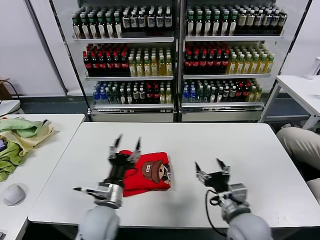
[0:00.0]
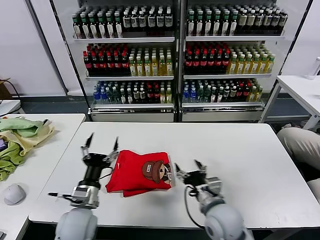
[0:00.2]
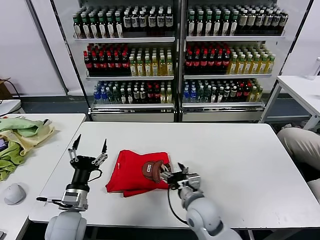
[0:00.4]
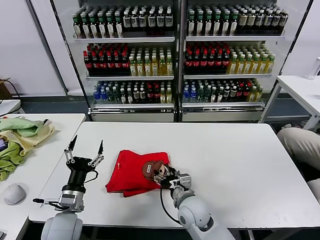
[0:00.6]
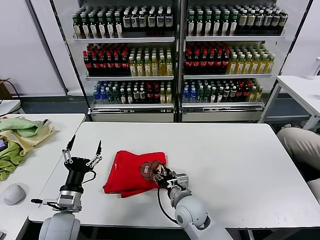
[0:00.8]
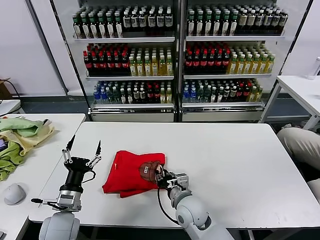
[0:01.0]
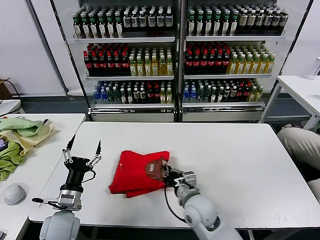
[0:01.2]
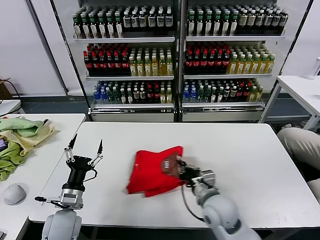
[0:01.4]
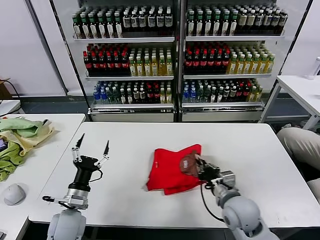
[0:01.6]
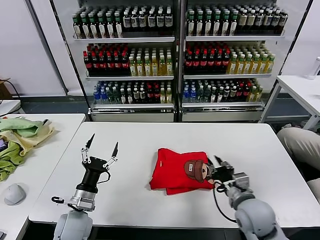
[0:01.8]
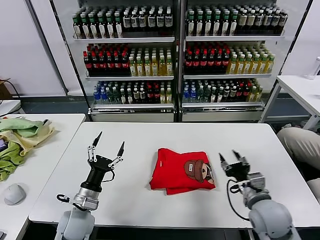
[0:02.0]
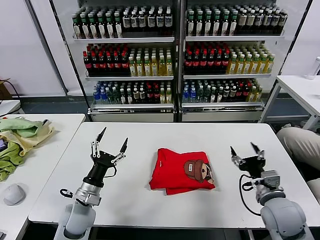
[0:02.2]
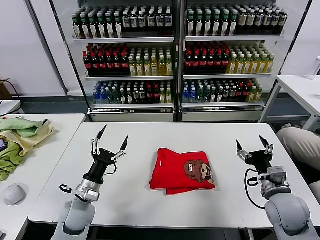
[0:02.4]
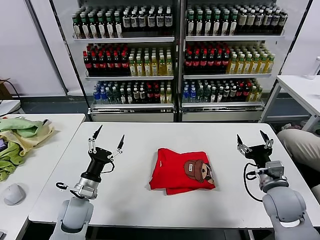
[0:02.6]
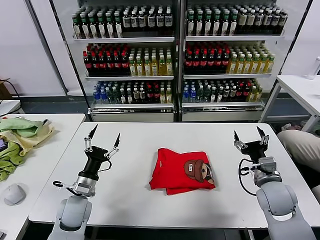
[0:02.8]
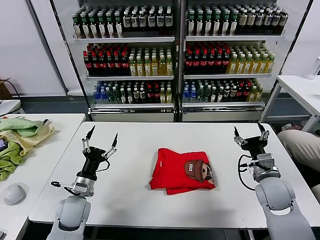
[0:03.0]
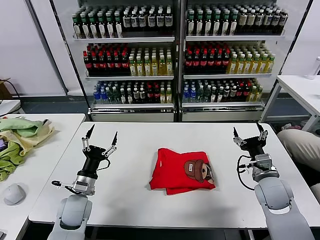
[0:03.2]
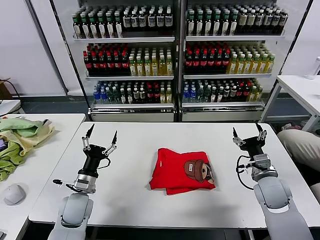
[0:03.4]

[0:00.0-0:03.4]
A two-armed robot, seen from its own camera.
Task of the whole recording: fold and organize the clothes.
Step, 0.0 to 1.8 s: Drag the clothes to the center of the table.
0.0 to 1.6 s: The left gripper heads to the left and downward, covering some 15 cm, while the right gripper travels forward by roughly 5 cm, goes to the left and returns, some 15 cm each way, and closes up.
1.6 to 3.4 s: The left gripper travels forward by approximately 5 cm. The right gripper heads to the right and forward, covering about 15 cm, and opens up.

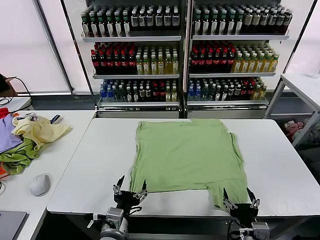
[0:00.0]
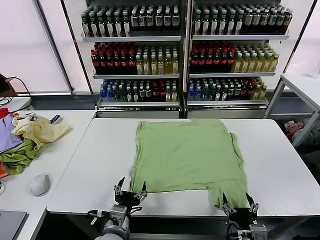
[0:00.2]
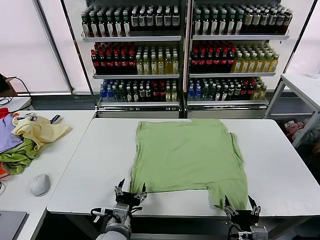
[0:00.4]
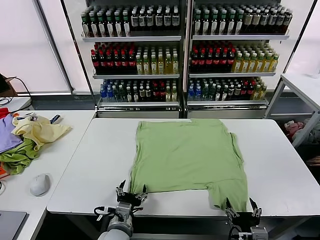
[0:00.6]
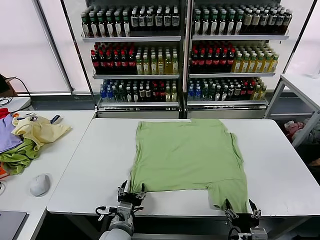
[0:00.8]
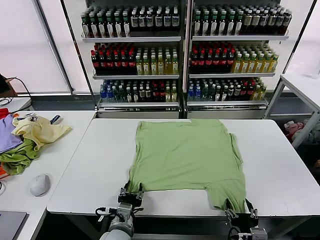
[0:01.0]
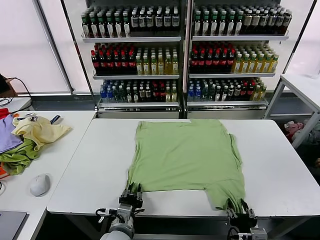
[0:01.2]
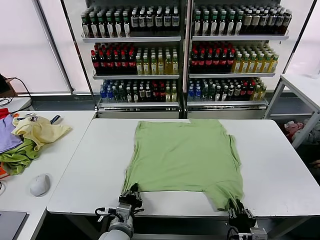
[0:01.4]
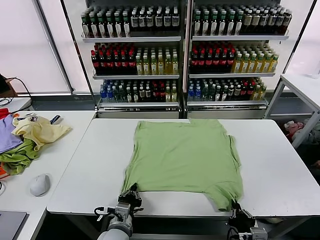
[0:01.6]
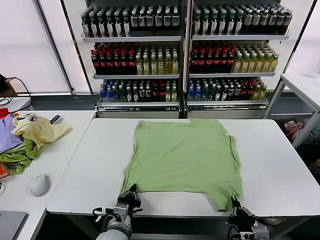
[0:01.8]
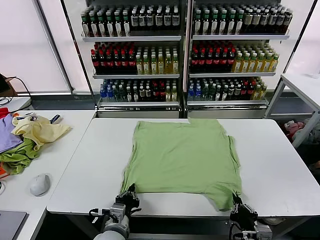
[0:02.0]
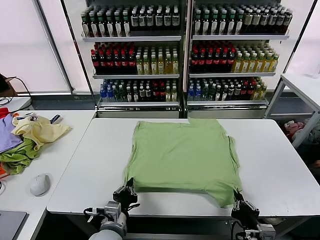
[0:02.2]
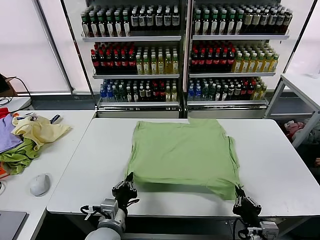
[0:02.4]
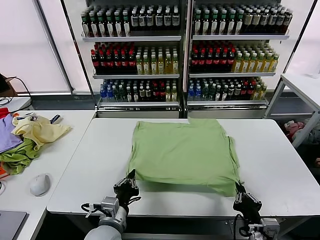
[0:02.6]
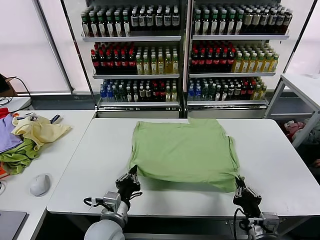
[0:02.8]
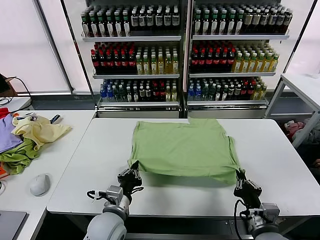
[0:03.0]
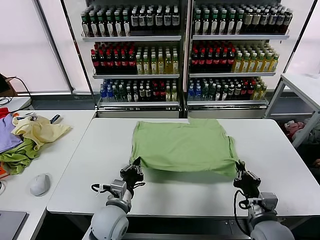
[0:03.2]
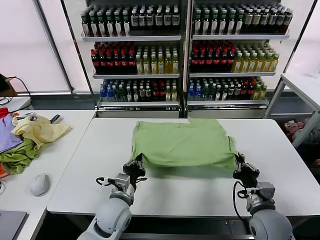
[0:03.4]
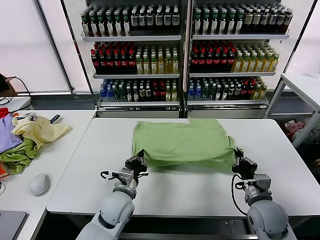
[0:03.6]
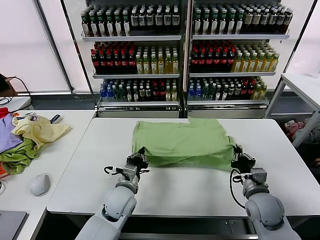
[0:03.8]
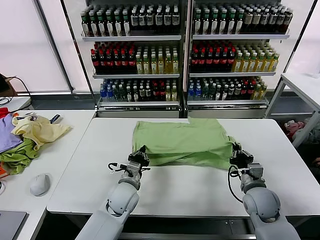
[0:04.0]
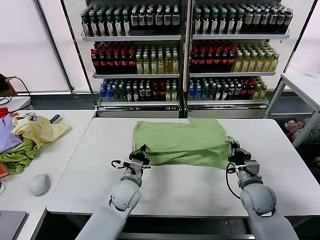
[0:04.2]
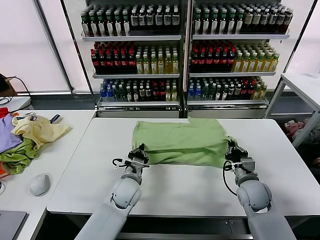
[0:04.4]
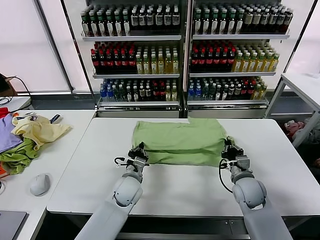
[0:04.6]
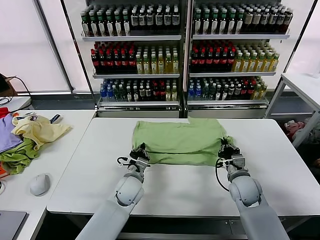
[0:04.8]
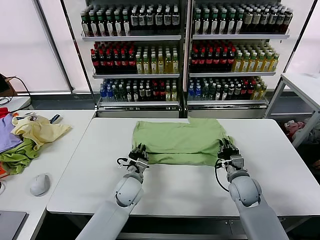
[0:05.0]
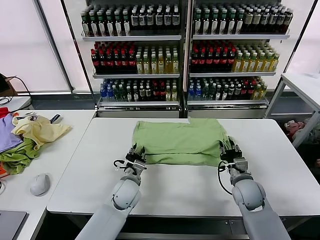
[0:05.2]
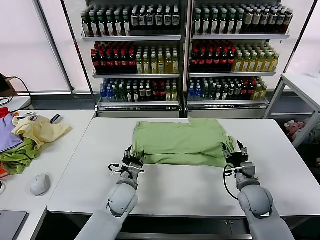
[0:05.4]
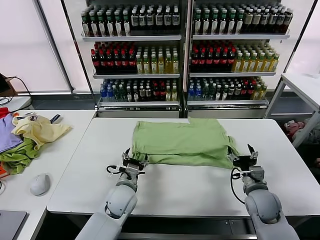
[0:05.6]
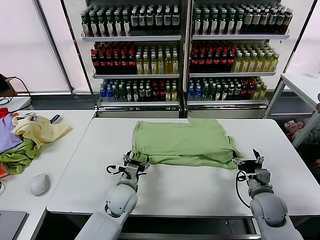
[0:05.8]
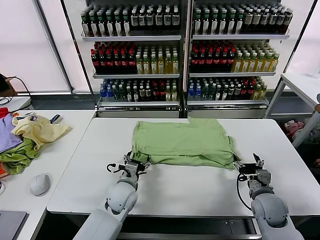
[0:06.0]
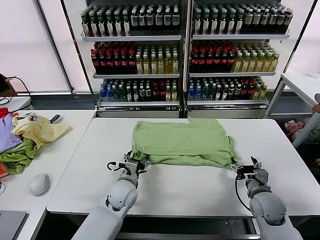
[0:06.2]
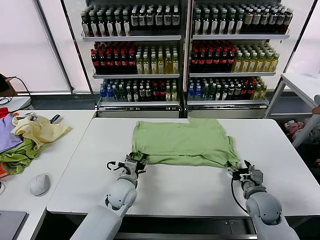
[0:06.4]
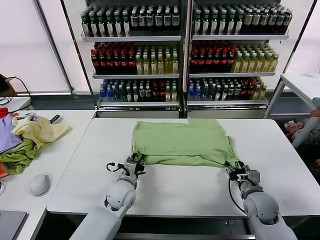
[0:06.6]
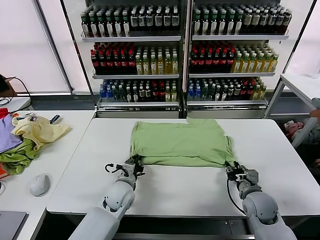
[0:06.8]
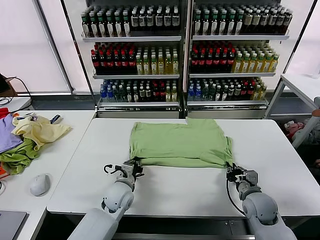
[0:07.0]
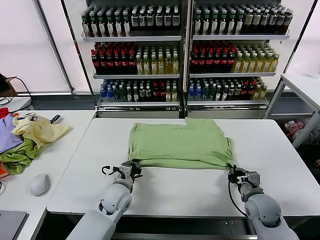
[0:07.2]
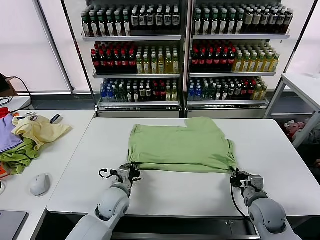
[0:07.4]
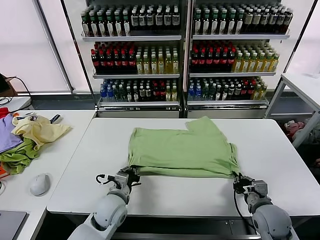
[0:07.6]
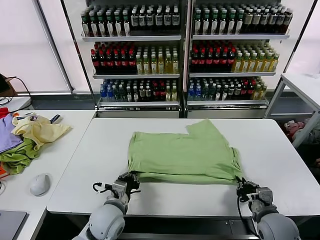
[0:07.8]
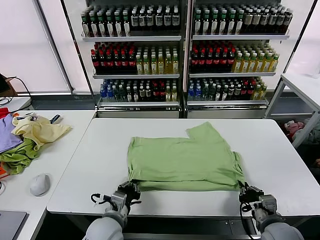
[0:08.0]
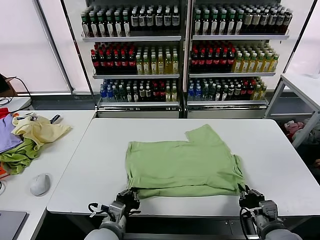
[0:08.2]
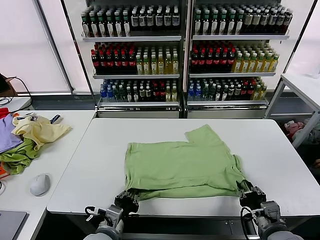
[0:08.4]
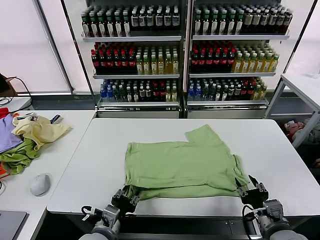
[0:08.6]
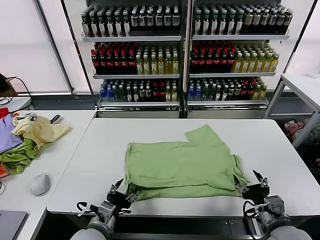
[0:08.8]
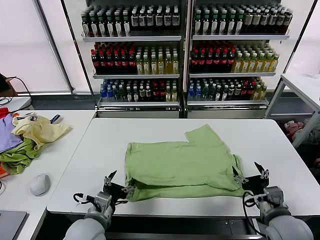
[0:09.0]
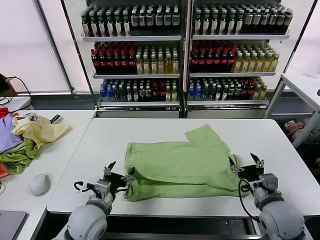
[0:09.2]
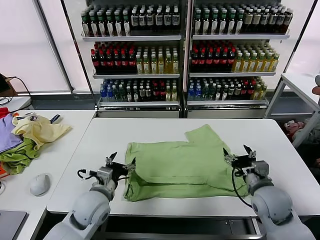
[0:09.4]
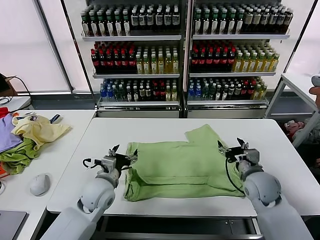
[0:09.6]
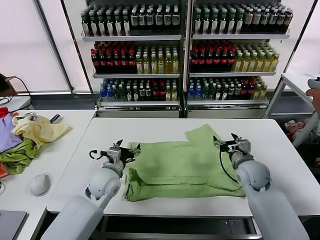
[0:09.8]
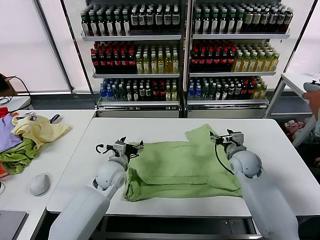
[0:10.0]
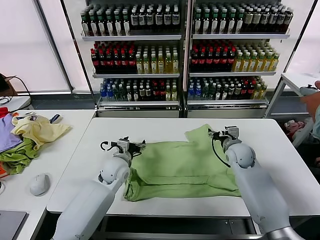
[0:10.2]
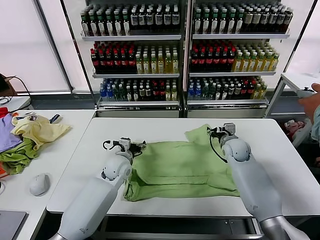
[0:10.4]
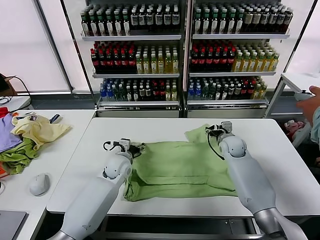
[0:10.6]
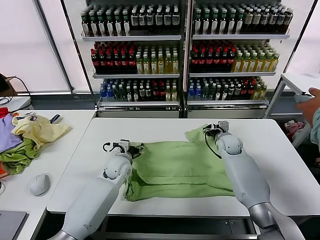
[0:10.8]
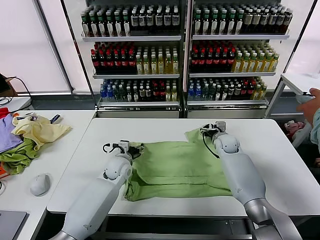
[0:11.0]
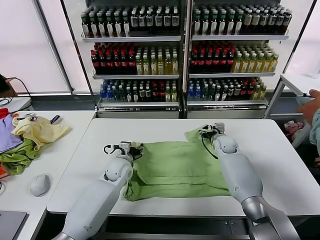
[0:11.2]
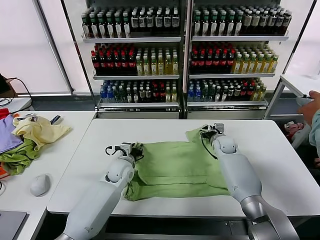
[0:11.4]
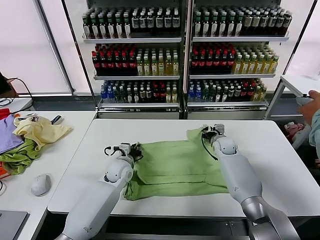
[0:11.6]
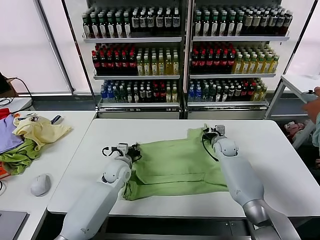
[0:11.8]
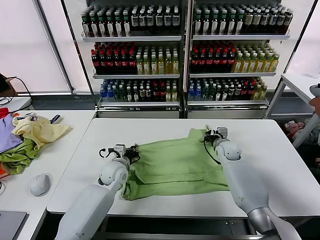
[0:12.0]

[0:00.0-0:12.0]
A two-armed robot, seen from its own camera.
Task of the whole recording: fold and organize the clothes.
Step, 0.0 to 1.6 s: use both grippers simultaneously to clamp the lower edge of the clothing fabric.
Step, 1.8 to 5.2 s: use both grippers to drag the lower edge of the fabric forward and fold it over the upper edge.
Step, 5.4 to 8.6 s: Drag the clothes downward with both gripper.
Step, 8.8 to 12.0 s: use both grippers simultaneously to clamp the upper edge of the clothing fabric.
1.6 to 3.0 s: The left gripper travels upward by roughly 5 cm. The right gripper moves forward, about 10 cm.
3.0 to 4.4 s: Both grippers travel together forward, roughly 15 cm.
4.4 to 6.0 s: The left gripper opens its fingers. The right gripper shifts by approximately 5 cm, and opens its fingers.
6.0 to 7.6 s: Both grippers travel together backward, approximately 5 cm. The right gripper closes; the left gripper closes its fingers.
7.6 to 9.0 s: The right gripper heads upward, covering roughly 5 cm, and opens up; the left gripper shifts about 10 cm backward, and opens.
9.0 to 10.4 s: Both grippers move forward, about 25 cm.
10.4 to 12.0 s: The left gripper closes up; the right gripper closes.

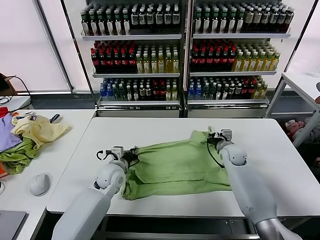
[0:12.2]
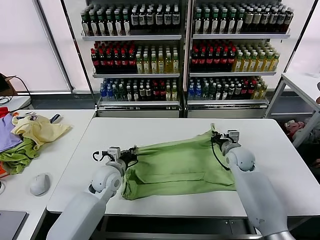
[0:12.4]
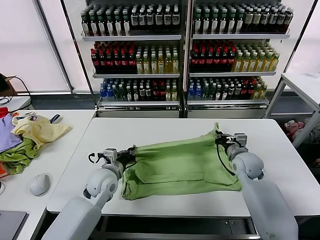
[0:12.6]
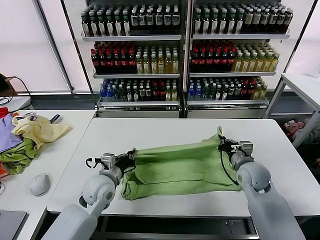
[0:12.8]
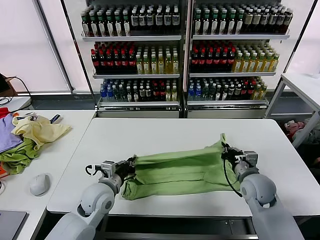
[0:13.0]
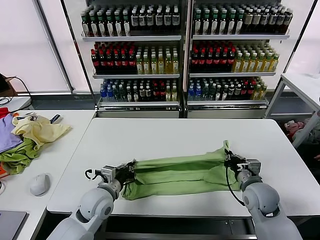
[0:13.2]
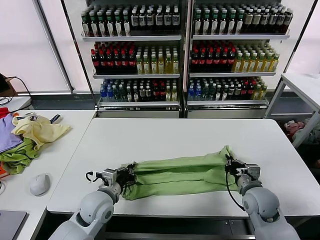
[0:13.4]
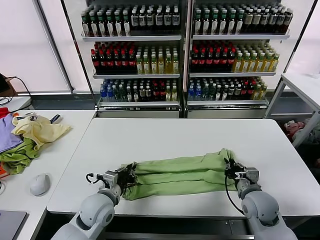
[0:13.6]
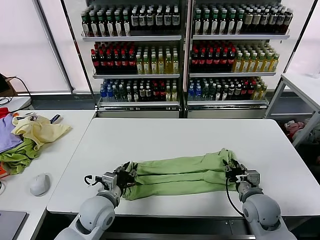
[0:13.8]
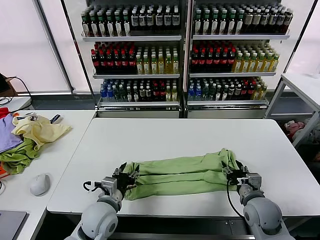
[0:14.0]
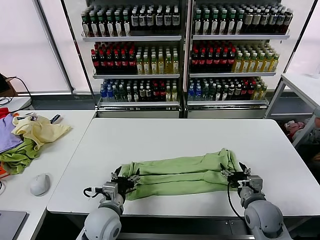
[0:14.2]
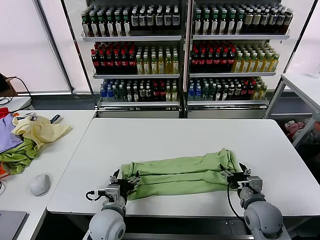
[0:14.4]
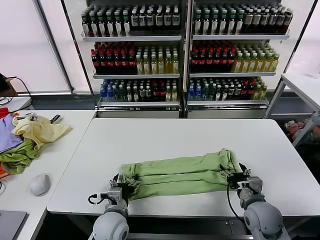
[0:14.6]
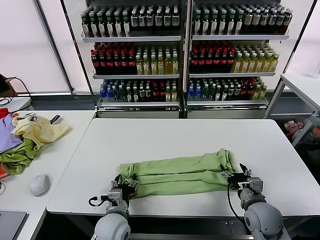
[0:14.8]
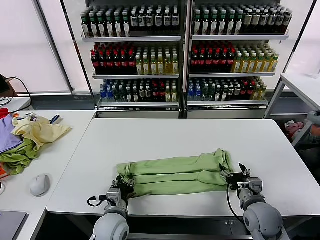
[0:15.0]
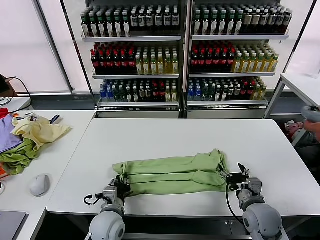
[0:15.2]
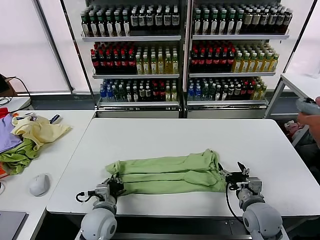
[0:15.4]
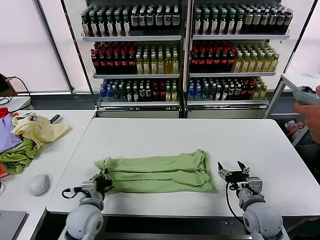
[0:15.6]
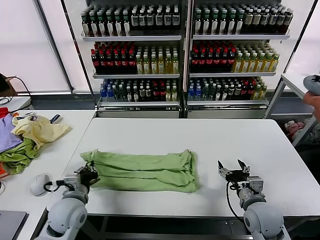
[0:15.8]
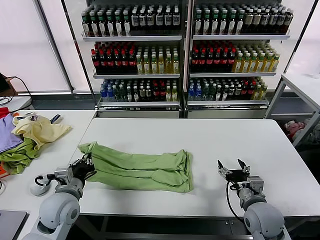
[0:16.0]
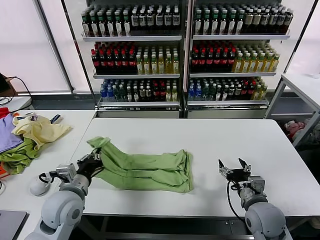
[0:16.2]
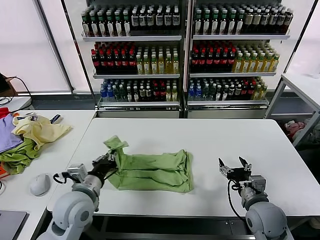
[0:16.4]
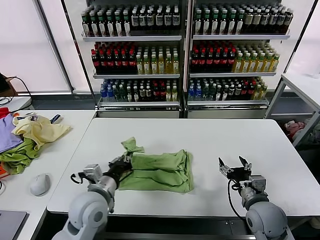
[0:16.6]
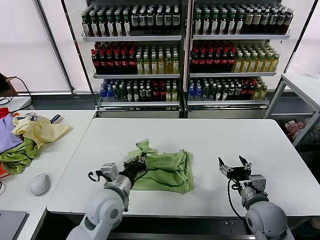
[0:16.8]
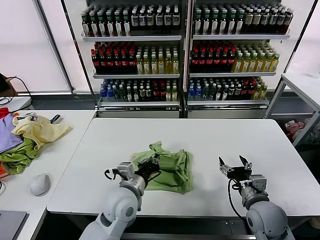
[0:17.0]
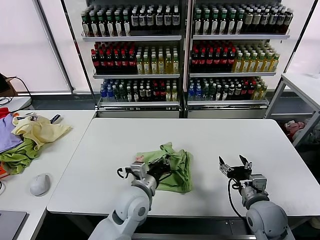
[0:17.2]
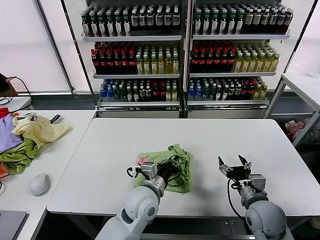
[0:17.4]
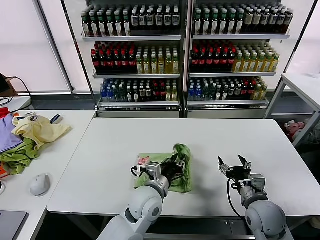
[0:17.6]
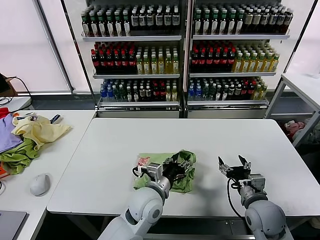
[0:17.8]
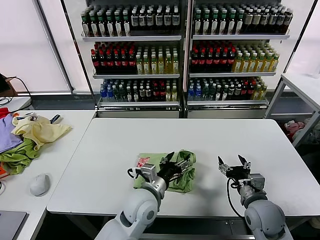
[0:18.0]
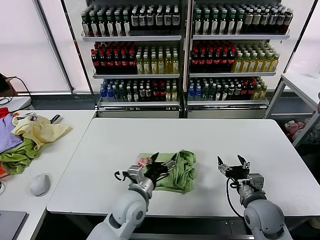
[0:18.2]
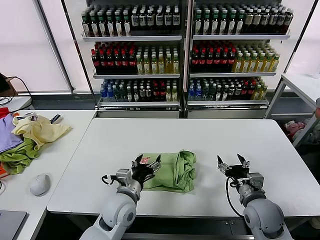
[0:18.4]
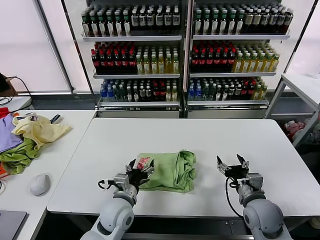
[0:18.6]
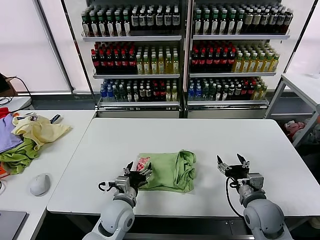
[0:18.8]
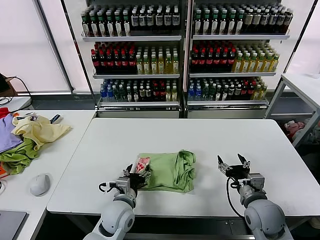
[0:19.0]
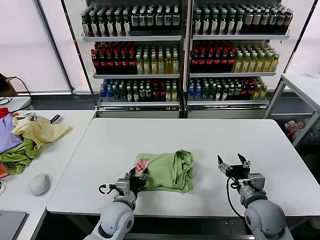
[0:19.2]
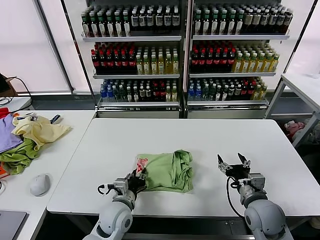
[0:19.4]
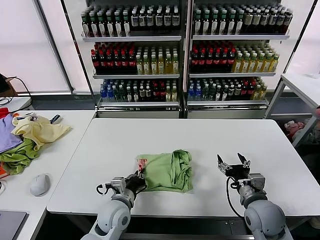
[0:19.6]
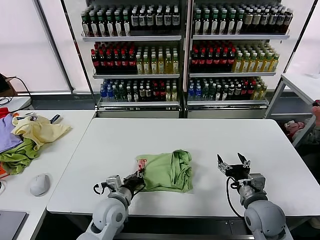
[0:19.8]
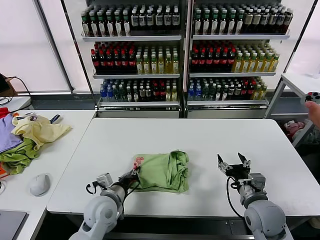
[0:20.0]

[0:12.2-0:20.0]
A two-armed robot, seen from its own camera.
Task of the whole recording: fold and organize the clothes.
Step, 12.2 to 13.8 s: use both grippers to drag the upper edge of the fabric backward and fold it over the lower edge.
Step, 14.0 to 15.4 s: use the left gripper to clamp the left edge of the fabric.
Step, 15.6 to 17.8 s: use the left gripper to drag the left edge of the fabric to the left and folds it over the right edge.
12.2 to 13.8 s: The right gripper is displaced backward by some 20 cm, and opens its fingers, while the left gripper goes roughly 15 cm backward, and opens.
13.8 to 15.4 s: The right gripper opens its fingers; the left gripper closes.
15.4 to 16.8 s: The left gripper heads upward, covering some 10 cm, and goes to the left and returns, approximately 10 cm each way.
16.8 to 18.4 s: The left gripper moves approximately 10 cm to the right and comes back, and opens.
18.4 to 20.0 s: The left gripper shifts about 5 cm to the left, and closes.
